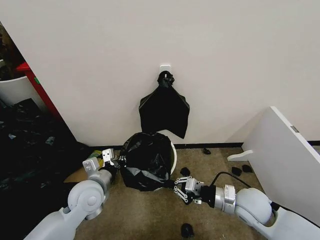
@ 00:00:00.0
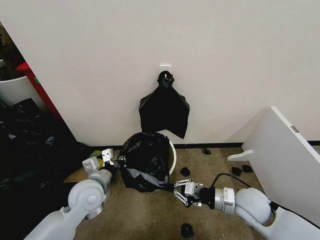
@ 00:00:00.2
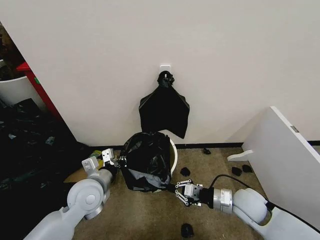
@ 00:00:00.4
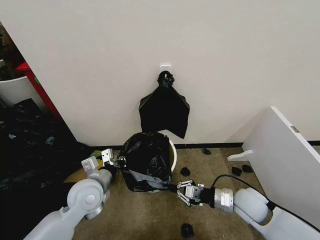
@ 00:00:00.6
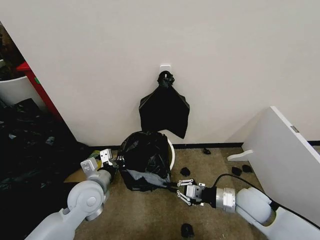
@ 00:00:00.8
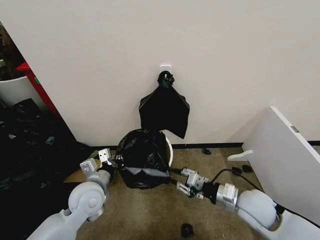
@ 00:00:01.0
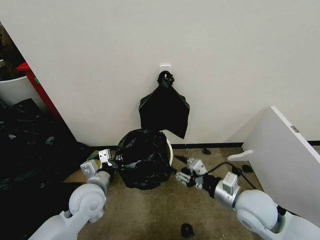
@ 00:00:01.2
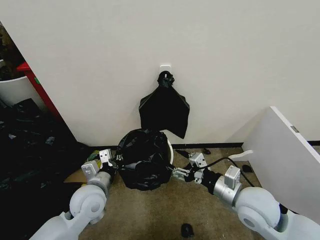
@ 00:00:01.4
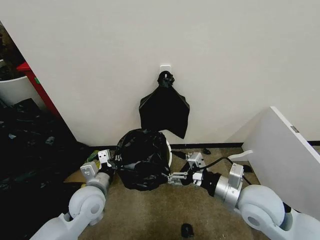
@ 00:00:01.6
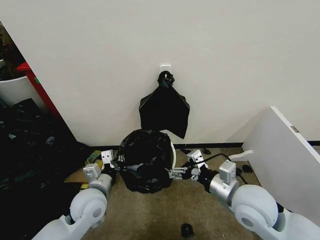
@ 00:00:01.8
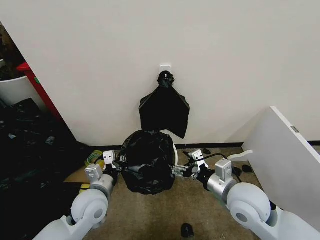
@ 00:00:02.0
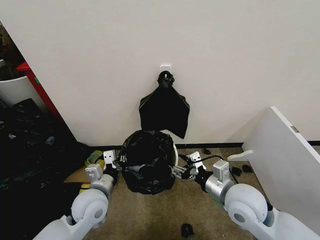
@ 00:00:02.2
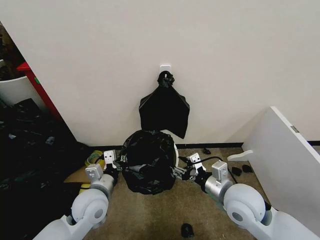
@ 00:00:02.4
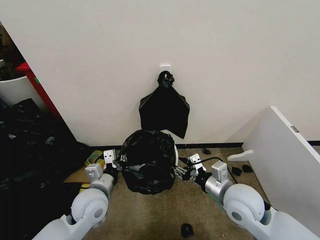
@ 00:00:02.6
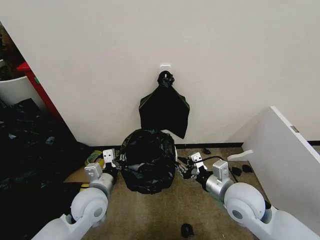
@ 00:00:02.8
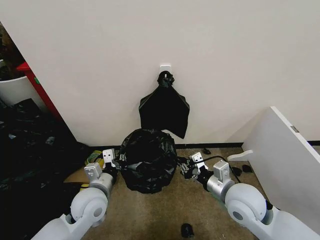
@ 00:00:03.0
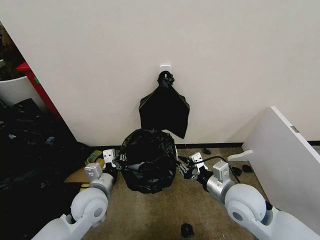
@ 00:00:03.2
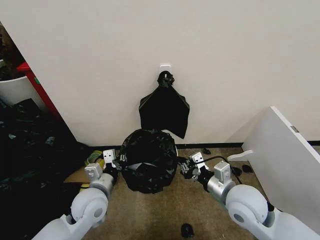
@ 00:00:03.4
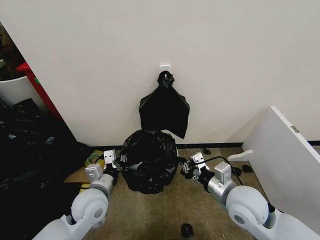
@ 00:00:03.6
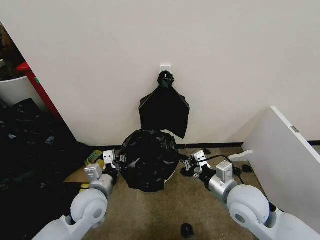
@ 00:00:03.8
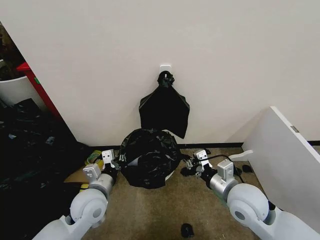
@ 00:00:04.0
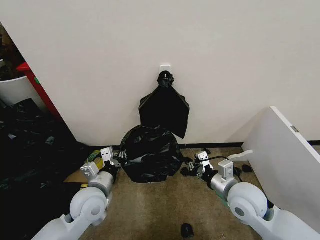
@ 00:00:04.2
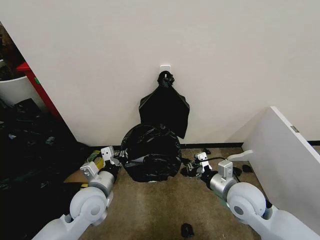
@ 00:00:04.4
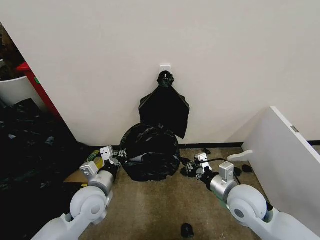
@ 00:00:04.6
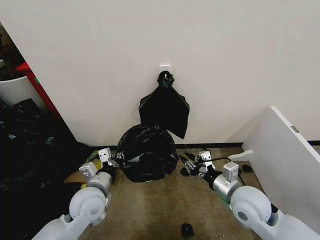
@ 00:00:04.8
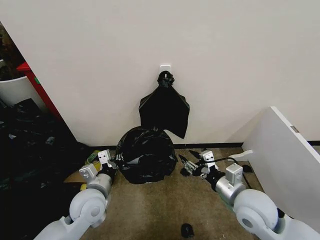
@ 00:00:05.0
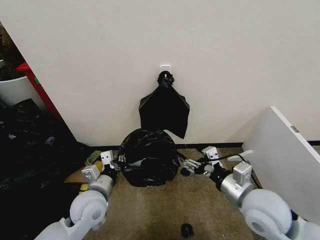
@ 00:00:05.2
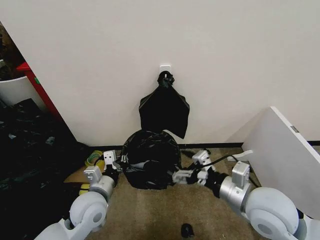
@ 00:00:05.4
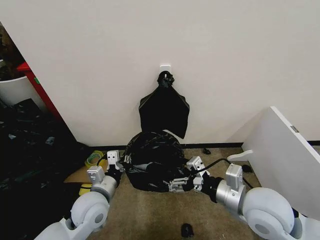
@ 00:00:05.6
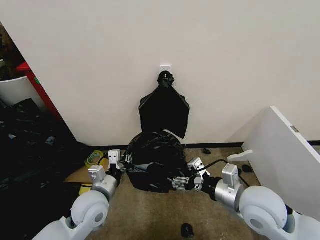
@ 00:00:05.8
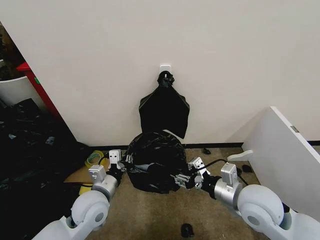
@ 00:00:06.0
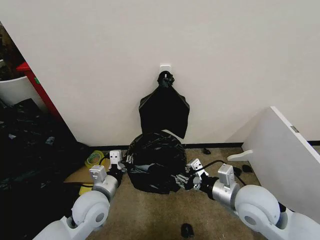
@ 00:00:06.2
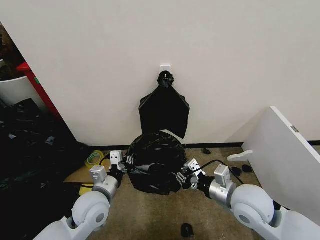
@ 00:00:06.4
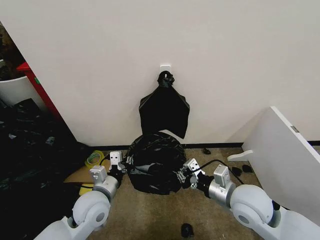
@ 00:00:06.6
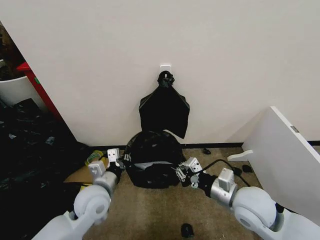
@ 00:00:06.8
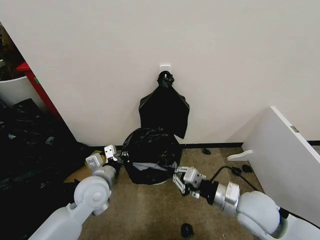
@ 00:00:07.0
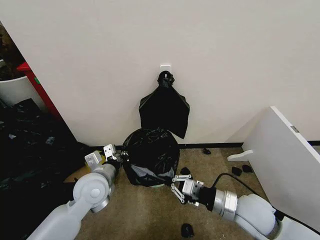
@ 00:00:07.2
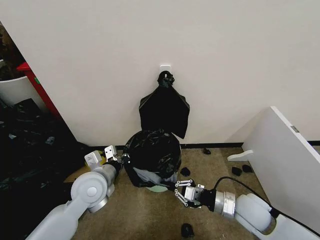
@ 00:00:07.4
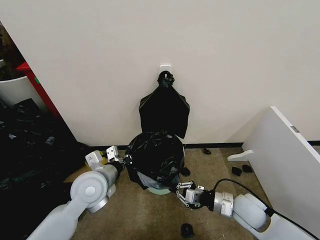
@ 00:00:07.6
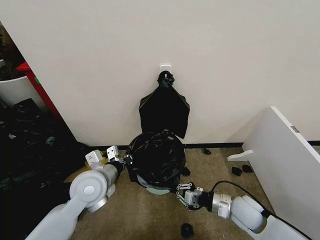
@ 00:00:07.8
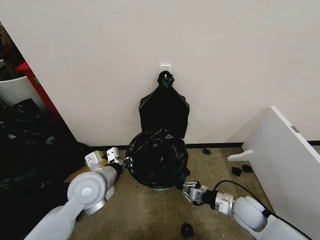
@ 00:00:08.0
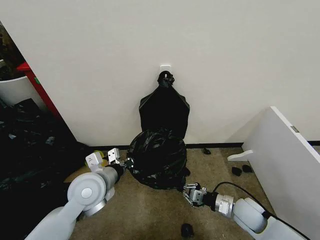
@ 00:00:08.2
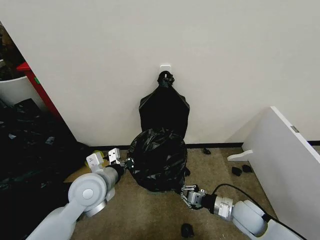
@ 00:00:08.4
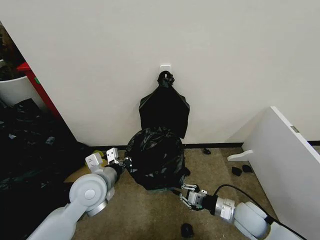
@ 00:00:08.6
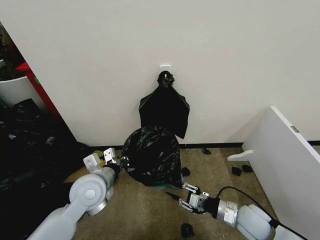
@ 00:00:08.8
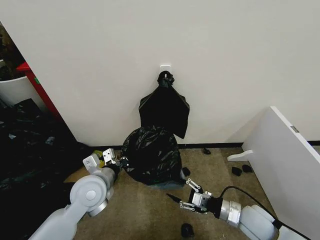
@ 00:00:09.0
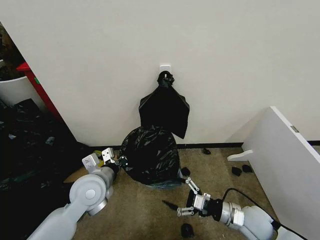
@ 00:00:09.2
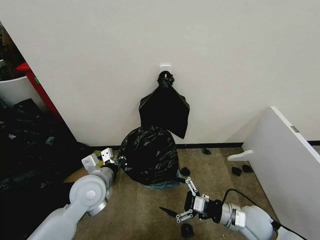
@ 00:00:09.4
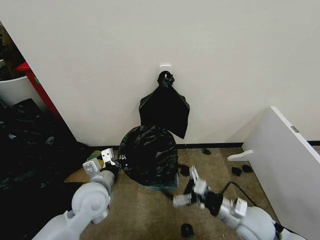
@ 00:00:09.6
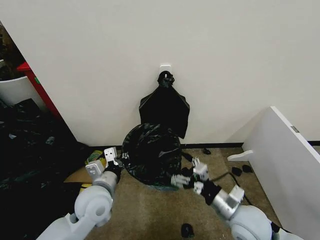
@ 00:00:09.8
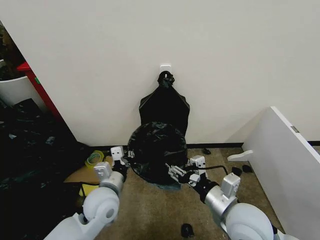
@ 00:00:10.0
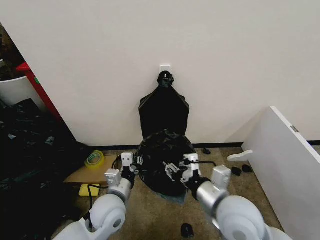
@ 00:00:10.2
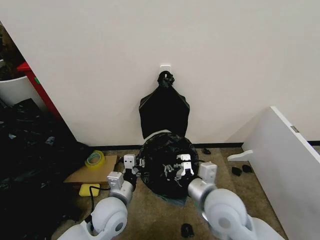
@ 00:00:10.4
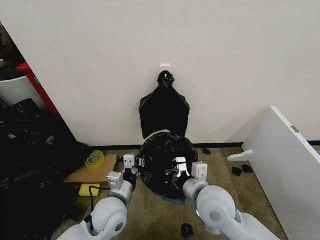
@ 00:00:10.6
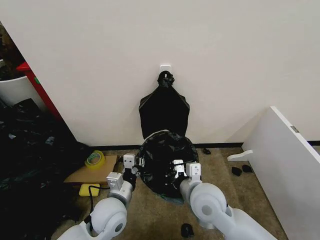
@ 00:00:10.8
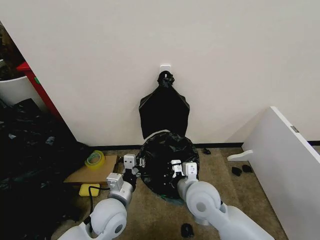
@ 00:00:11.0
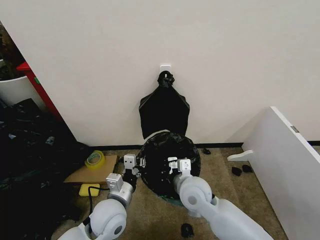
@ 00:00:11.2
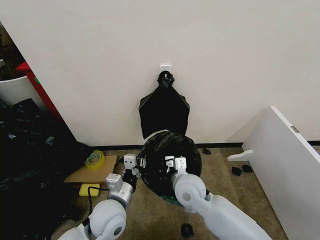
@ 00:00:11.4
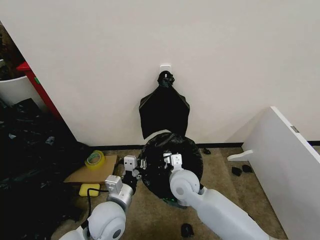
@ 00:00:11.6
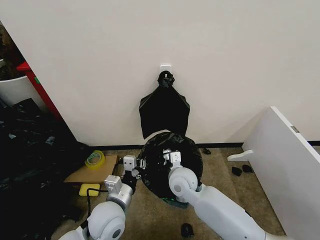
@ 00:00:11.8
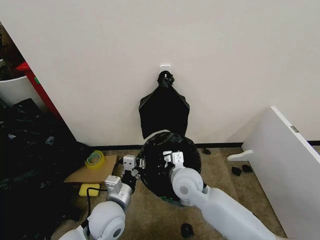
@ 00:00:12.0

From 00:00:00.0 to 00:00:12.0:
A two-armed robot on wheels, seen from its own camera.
Task of the whole recording: Place the garbage bag over the trash bin.
From 00:00:00.0 to 00:00:01.6: The right gripper goes some 10 cm upward, and opens its fingers.
From 00:00:01.6 to 00:00:03.0: The right gripper closes its fingers.
From 00:00:03.0 to 00:00:04.4: There are only small adjustments of the grippers.
From 00:00:04.4 to 00:00:06.0: The right gripper travels upward by approximately 5 cm, and opens its fingers.
From 00:00:06.0 to 00:00:07.6: The right gripper heads downward, covering approximately 10 cm, and closes its fingers. Meanwhile the left gripper shifts by approximately 5 cm.
From 00:00:07.6 to 00:00:09.0: The right gripper ends up approximately 5 cm from where it was, and opens up.
From 00:00:09.0 to 00:00:10.4: The left gripper shifts some 10 cm to the right and downward, while the right gripper heads to the left and upward, covering roughly 20 cm, and closes its fingers.
From 00:00:10.4 to 00:00:12.0: The right gripper is displaced forward, to the left and downward by roughly 15 cm.

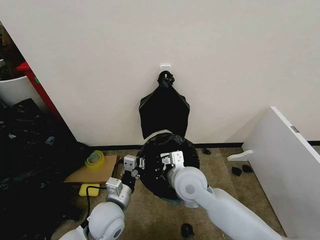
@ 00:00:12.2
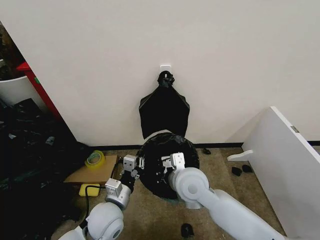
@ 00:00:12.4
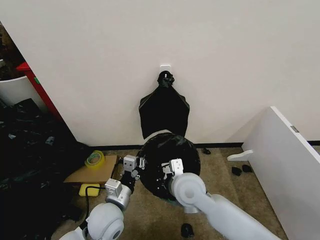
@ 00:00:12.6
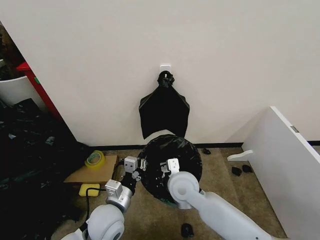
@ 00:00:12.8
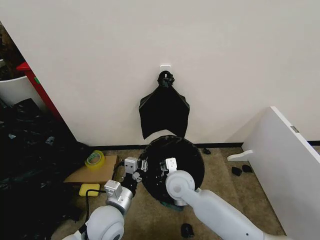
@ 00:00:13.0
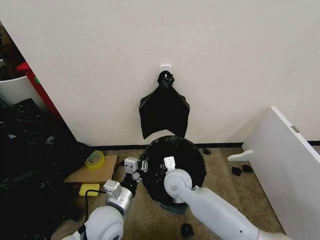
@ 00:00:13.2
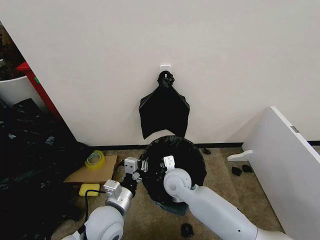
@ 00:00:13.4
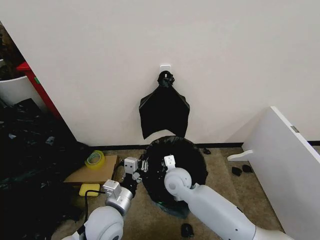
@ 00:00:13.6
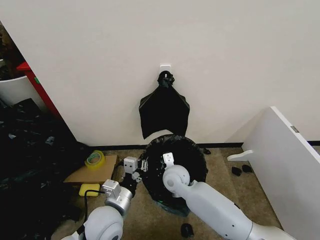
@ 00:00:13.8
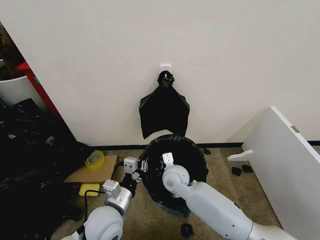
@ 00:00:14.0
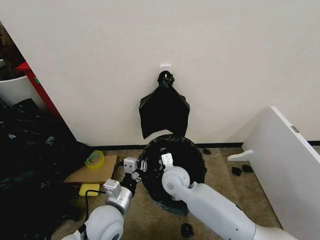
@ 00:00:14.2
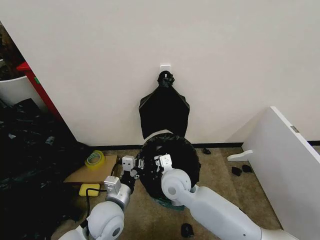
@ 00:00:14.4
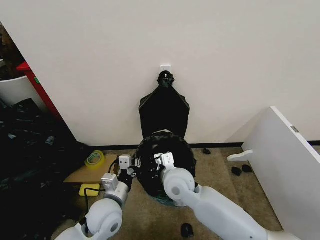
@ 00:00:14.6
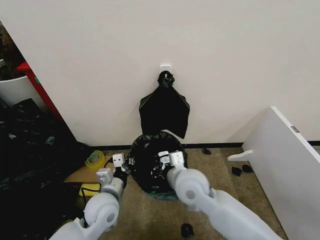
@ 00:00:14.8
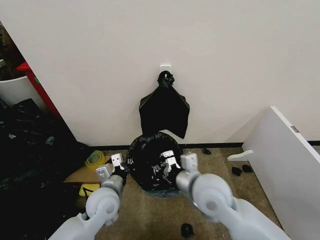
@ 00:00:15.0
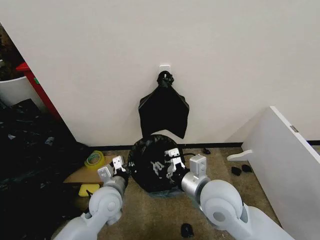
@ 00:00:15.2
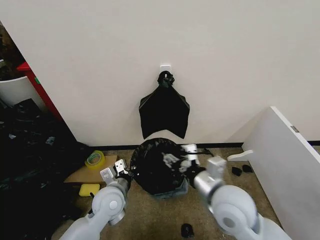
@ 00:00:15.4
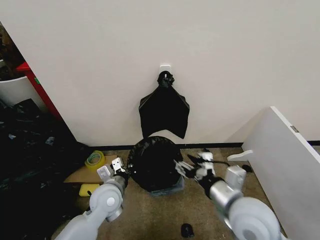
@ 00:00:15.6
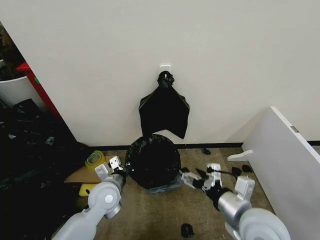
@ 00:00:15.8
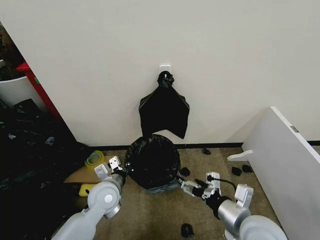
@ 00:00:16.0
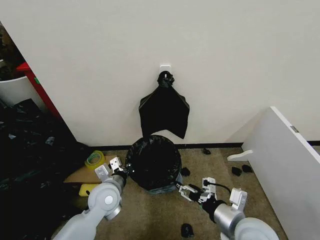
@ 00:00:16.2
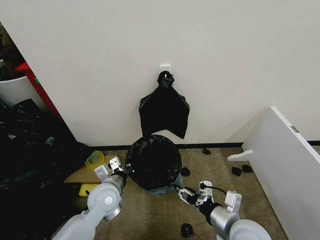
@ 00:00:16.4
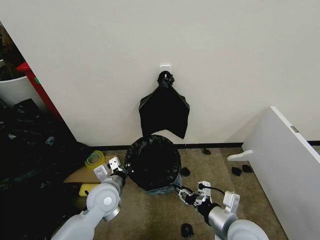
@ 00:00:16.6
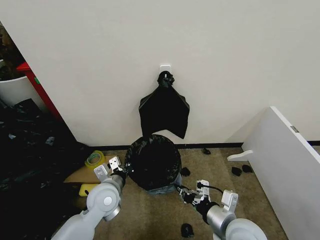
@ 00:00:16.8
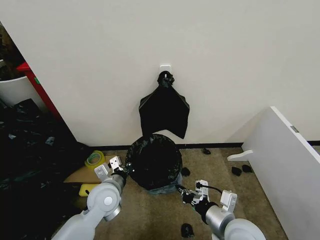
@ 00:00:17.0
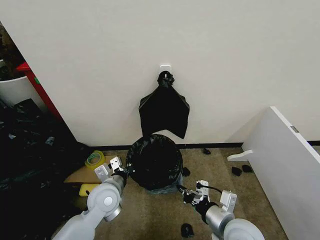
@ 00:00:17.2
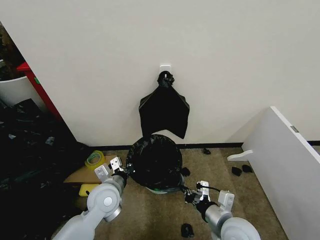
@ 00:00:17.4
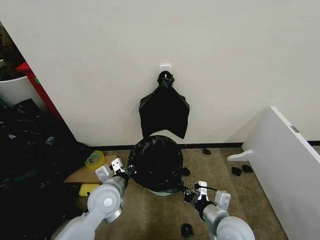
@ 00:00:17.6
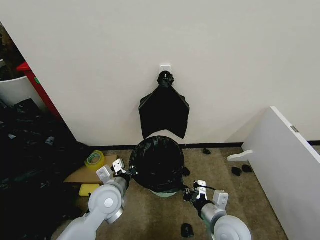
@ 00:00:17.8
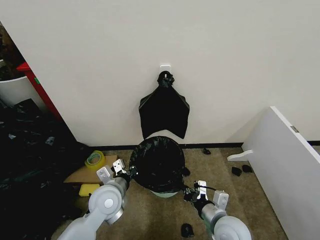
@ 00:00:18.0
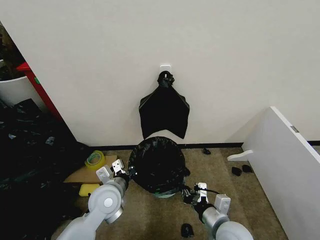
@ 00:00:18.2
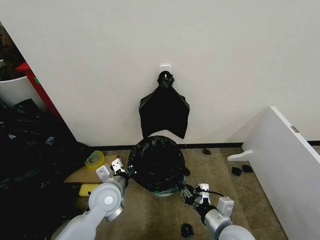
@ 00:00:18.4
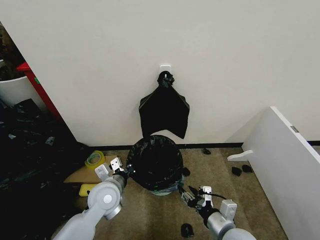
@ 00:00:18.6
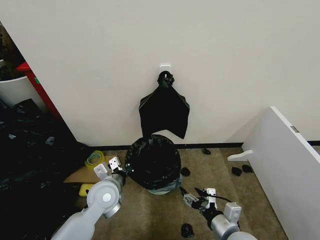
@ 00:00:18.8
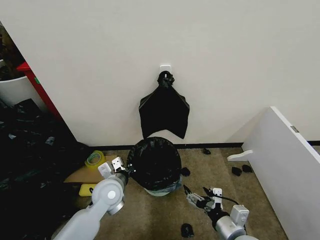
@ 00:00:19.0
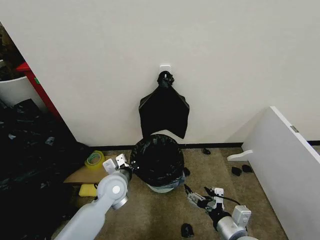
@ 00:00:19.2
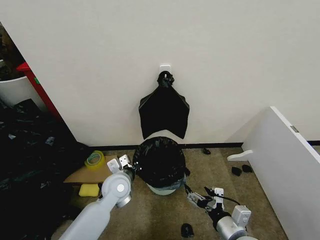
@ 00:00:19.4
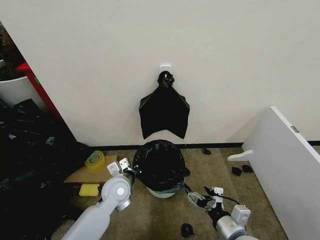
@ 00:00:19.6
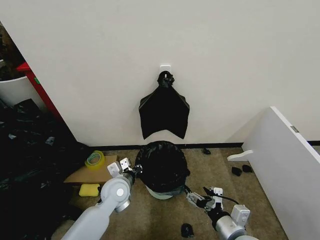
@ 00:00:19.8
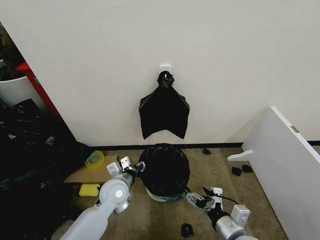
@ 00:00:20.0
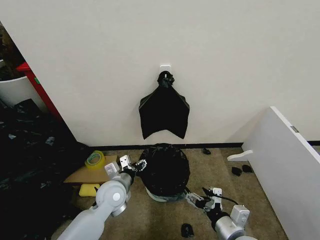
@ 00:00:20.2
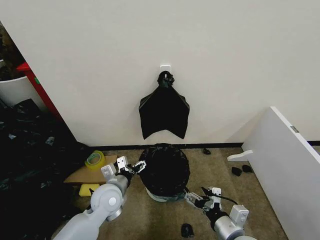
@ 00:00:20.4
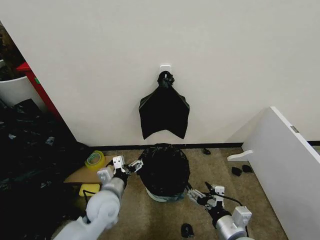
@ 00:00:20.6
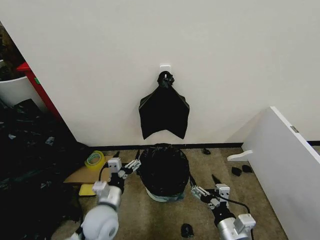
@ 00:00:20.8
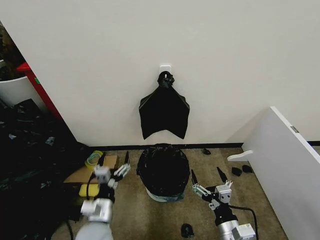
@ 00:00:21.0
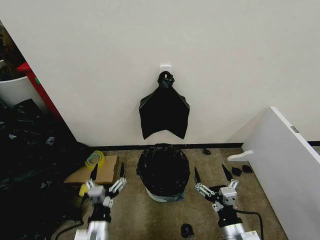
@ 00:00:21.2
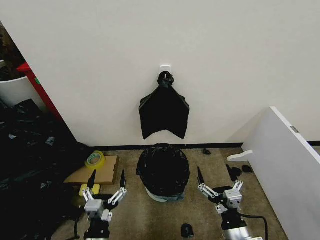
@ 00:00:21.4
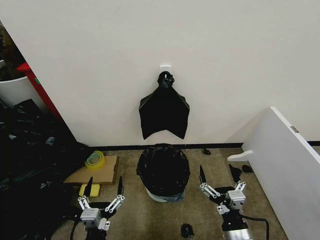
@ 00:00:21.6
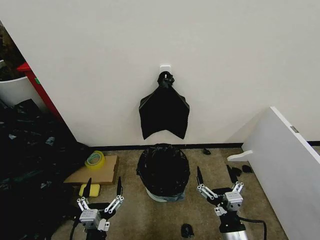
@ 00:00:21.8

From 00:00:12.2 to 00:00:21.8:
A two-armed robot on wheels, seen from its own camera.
Task of the whole recording: Place the garbage bag over the trash bin.
From 00:00:12.2 to 00:00:13.8: The right gripper heads downward and forward, covering about 10 cm.
From 00:00:13.8 to 00:00:15.4: The left gripper goes roughly 5 cm forward. The right gripper moves backward, upward and to the right, approximately 20 cm, and opens up.
From 00:00:15.4 to 00:00:17.0: The right gripper goes some 10 cm downward and backward, and closes its fingers.
From 00:00:17.0 to 00:00:18.6: The right gripper shifts about 5 cm downward, and opens.
From 00:00:18.6 to 00:00:20.2: The left gripper opens up. Meanwhile the right gripper opens up.
From 00:00:20.2 to 00:00:21.8: The left gripper is displaced backward by approximately 25 cm.
